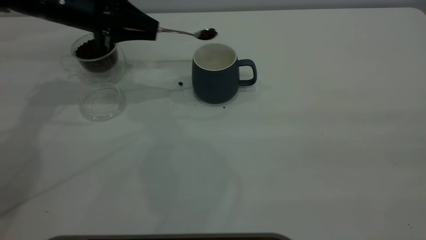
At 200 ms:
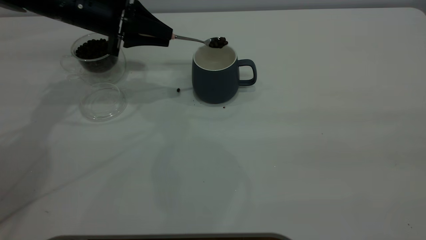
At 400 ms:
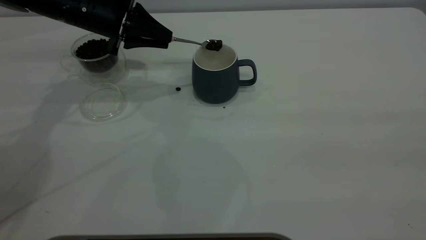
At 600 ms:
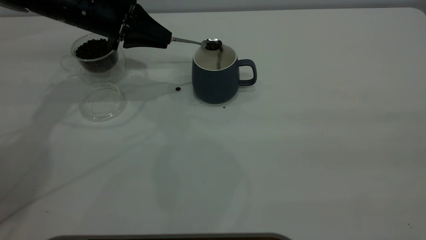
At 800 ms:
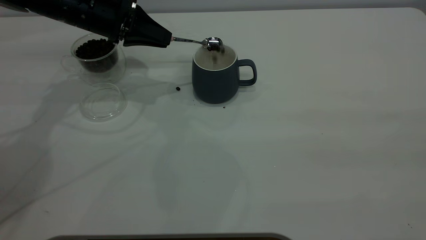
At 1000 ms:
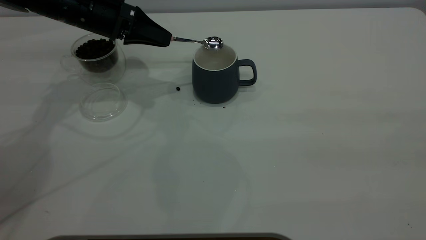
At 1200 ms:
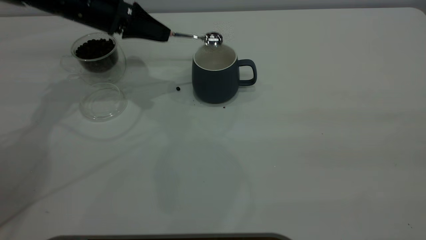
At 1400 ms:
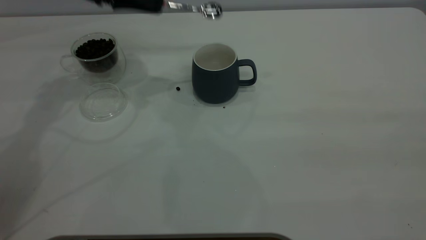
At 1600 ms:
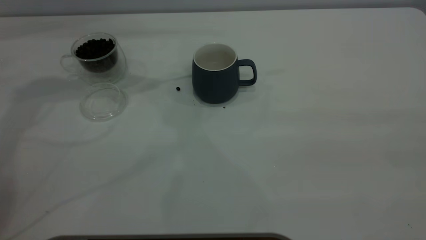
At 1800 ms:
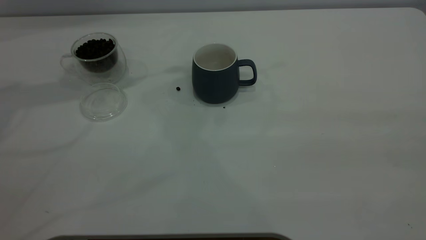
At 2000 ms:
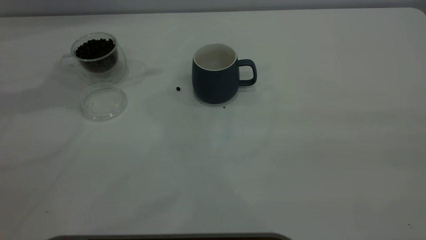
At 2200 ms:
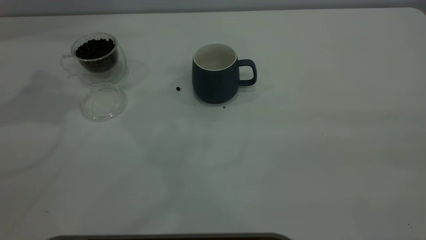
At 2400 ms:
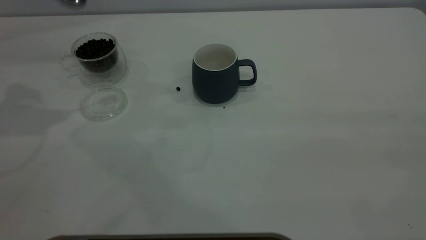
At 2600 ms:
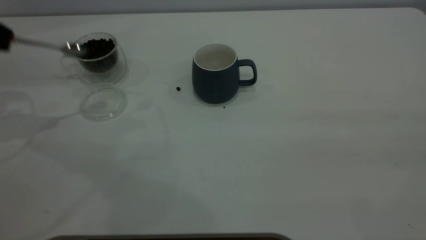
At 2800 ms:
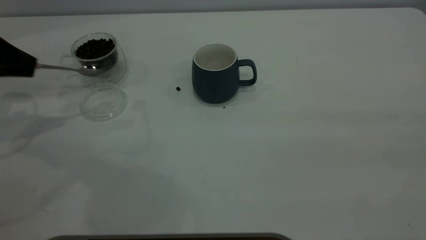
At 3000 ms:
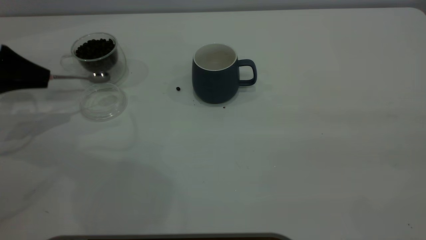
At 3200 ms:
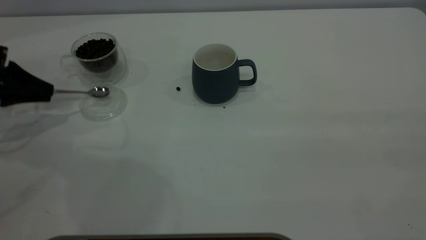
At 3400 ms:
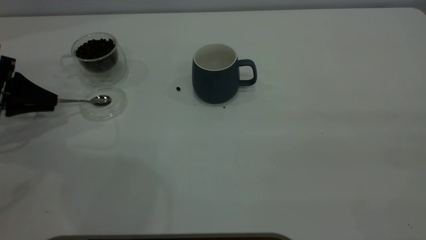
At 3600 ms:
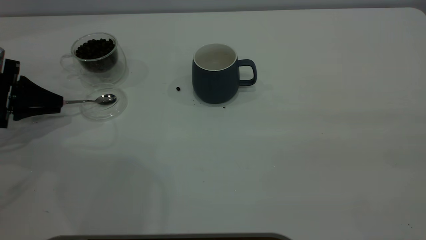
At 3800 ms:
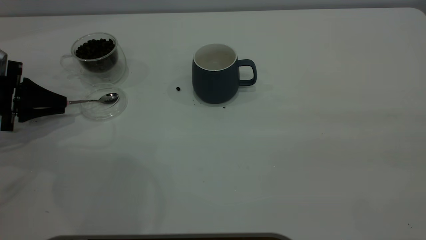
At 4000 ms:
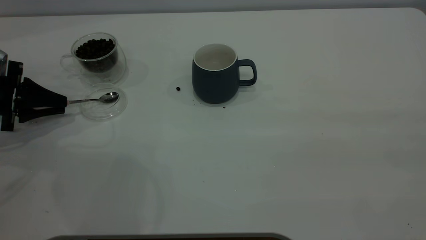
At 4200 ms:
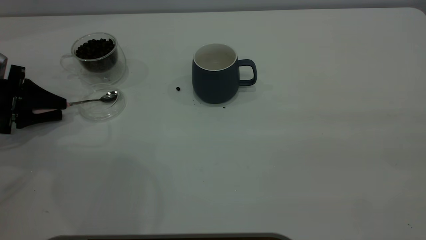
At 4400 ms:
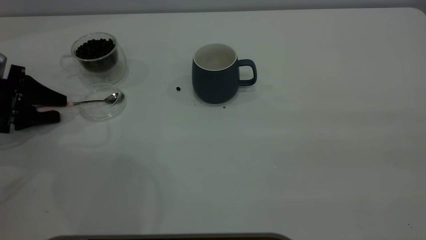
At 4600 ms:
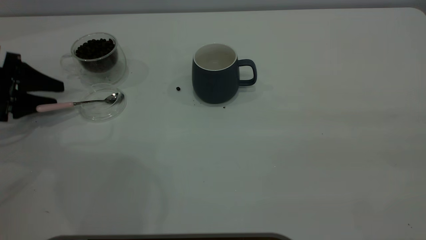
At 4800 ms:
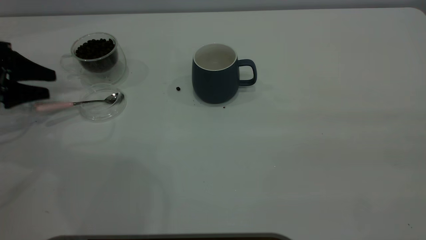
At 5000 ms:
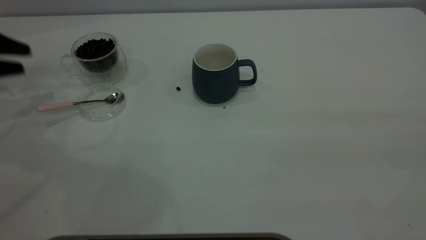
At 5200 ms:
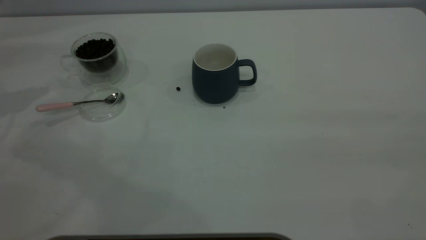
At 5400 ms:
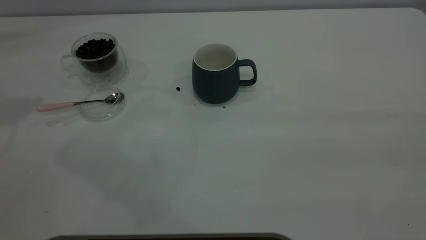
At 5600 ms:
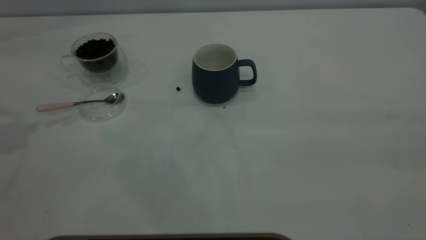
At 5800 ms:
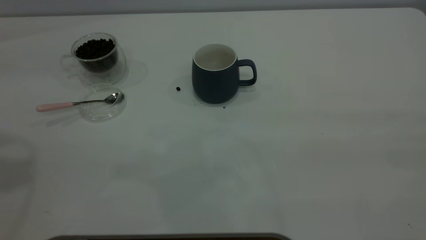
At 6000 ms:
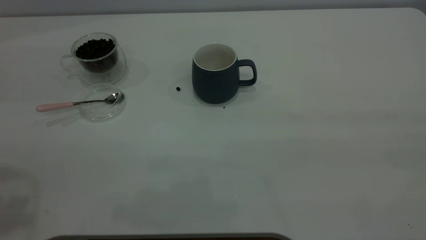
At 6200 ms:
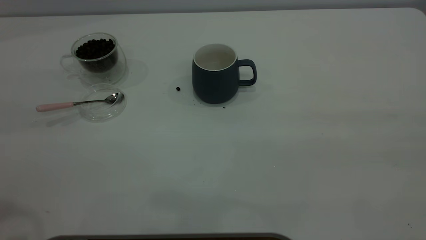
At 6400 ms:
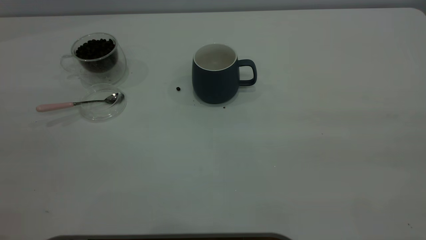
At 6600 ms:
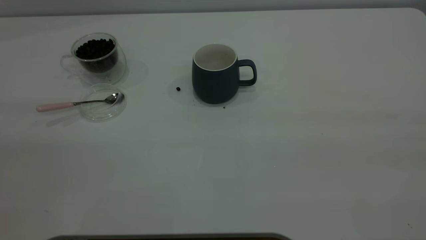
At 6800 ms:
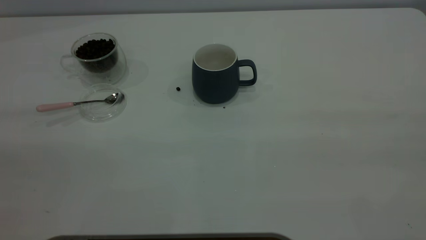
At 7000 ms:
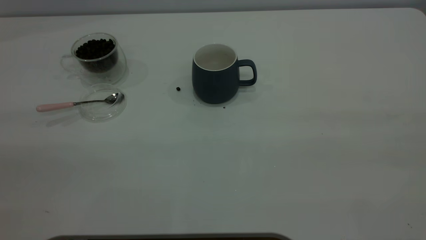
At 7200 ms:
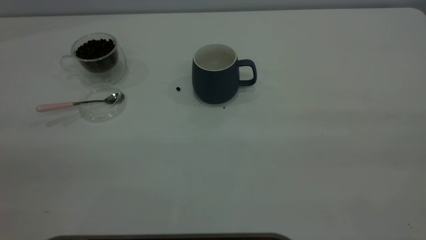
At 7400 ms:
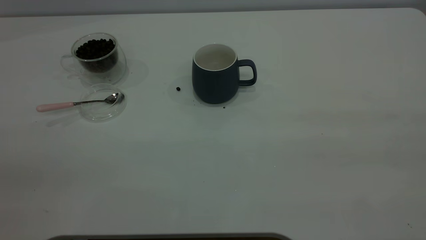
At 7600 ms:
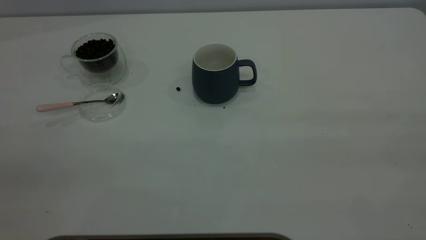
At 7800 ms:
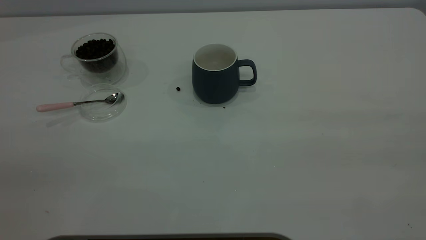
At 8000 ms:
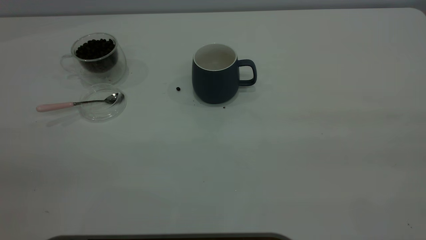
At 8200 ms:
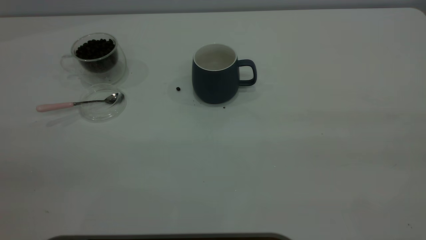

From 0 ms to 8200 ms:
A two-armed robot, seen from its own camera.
Task of the whole recording: the right gripper place the grey cup in the center of the table, the left gripper take the pink spoon from the cup lid and scoop out the coffee beans from the coffee cup and put them into the grey cup, the left gripper put the spoon back into the cup lid.
Step, from 1400 ms to 4800 ms: Place the spoon back in its original place.
From 0 ms to 1600 ms: The left gripper heads upward, covering approximately 15 cm.
From 1600 ms to 3200 ms: The left gripper is displaced downward, to the left and backward by roughly 25 cm.
From 3200 ms to 5000 ms: The left gripper goes approximately 5 cm upward, and opens up.
From 5000 ms to 6600 ms: The left gripper is displaced backward, upward and to the right by roughly 40 cm.
